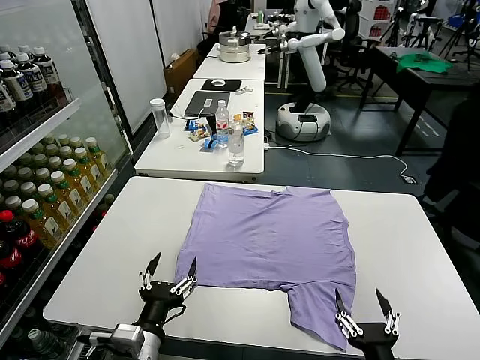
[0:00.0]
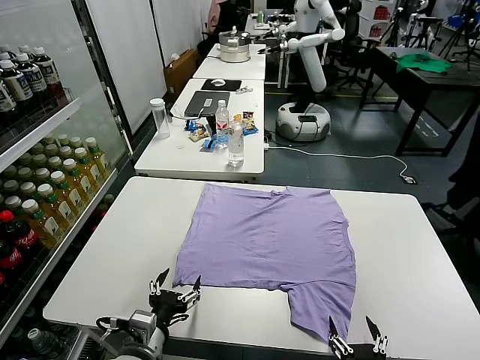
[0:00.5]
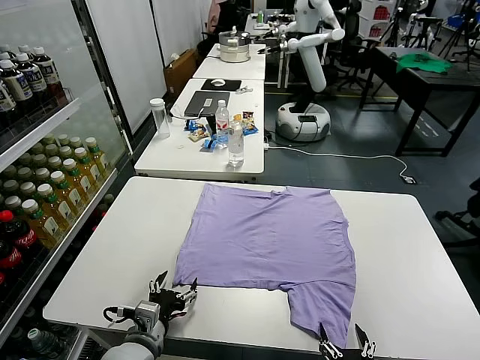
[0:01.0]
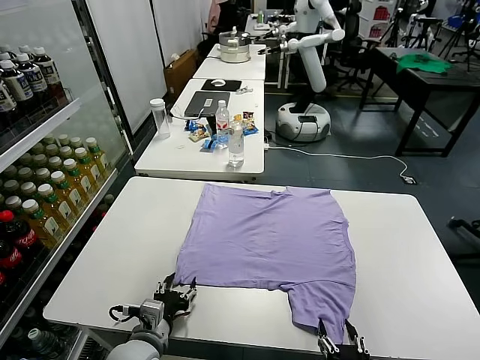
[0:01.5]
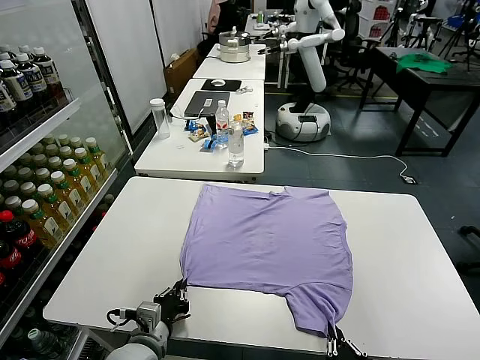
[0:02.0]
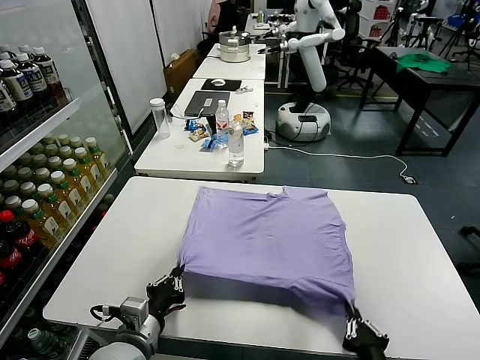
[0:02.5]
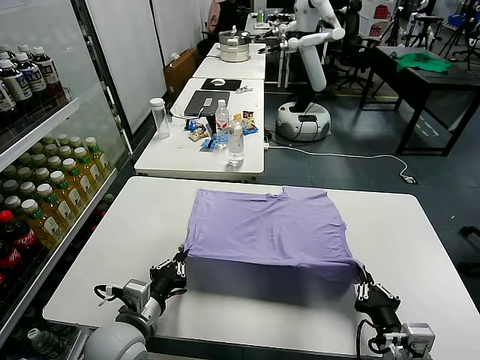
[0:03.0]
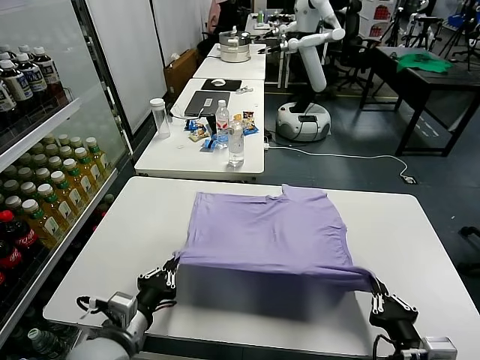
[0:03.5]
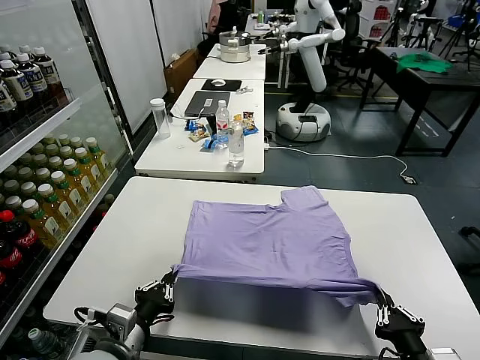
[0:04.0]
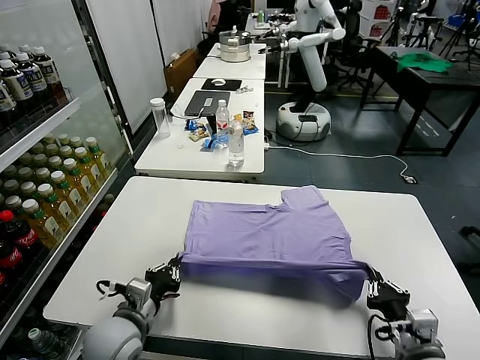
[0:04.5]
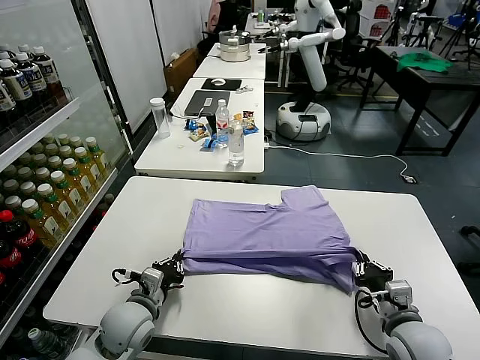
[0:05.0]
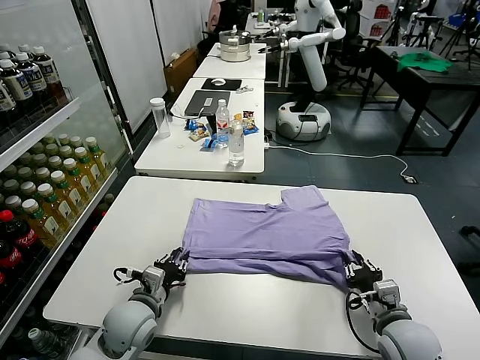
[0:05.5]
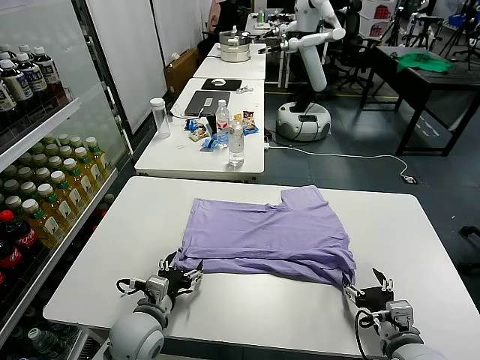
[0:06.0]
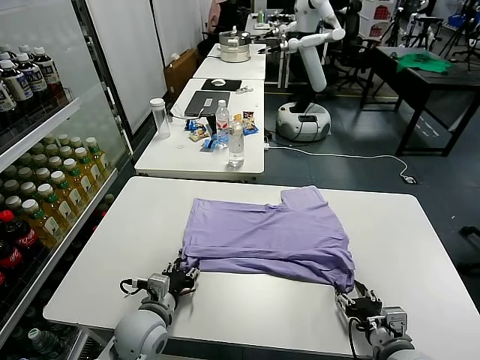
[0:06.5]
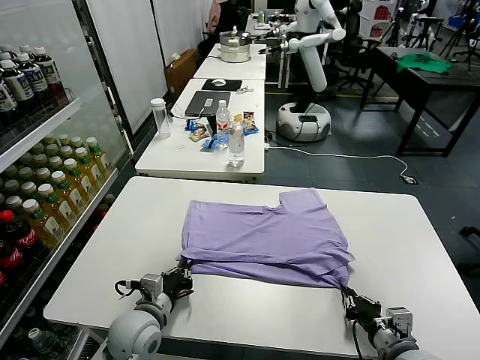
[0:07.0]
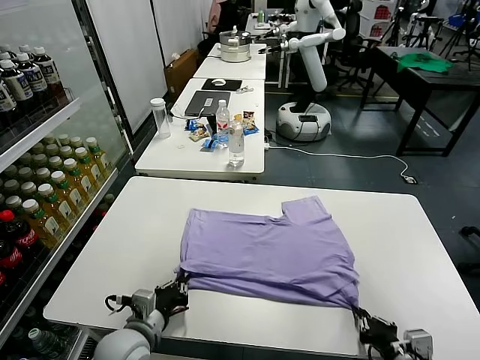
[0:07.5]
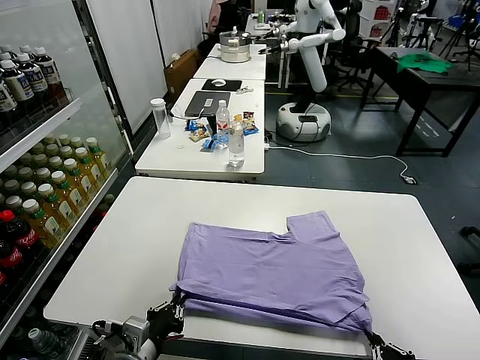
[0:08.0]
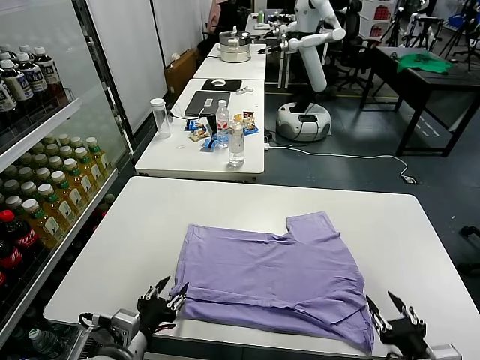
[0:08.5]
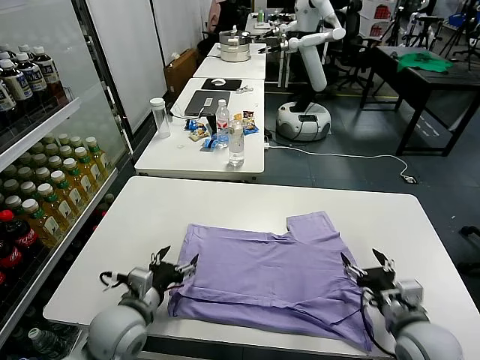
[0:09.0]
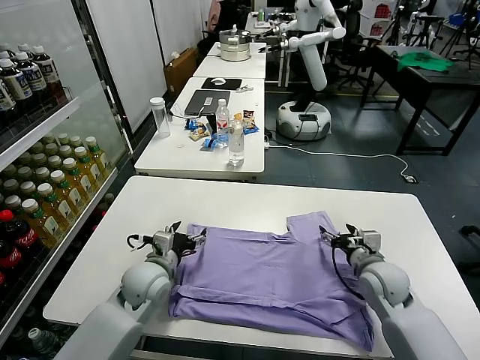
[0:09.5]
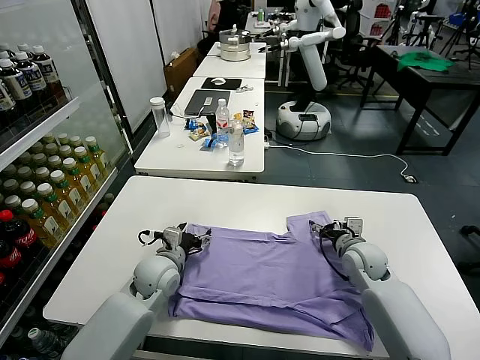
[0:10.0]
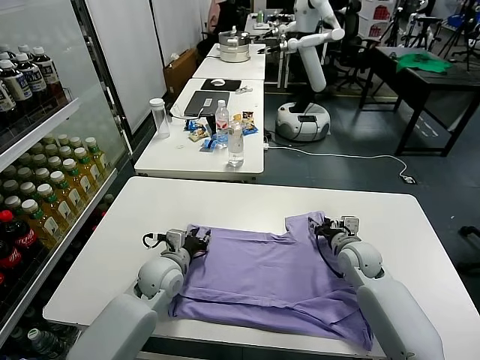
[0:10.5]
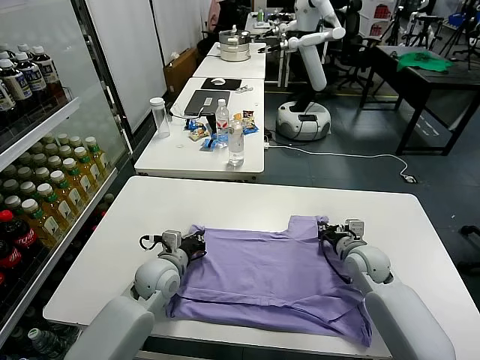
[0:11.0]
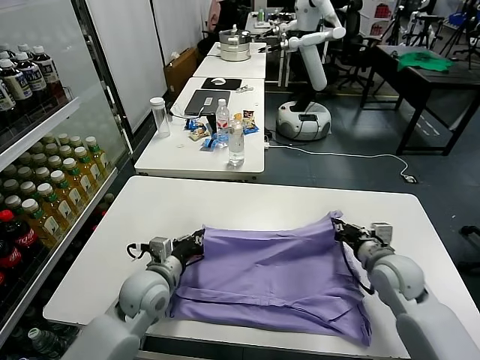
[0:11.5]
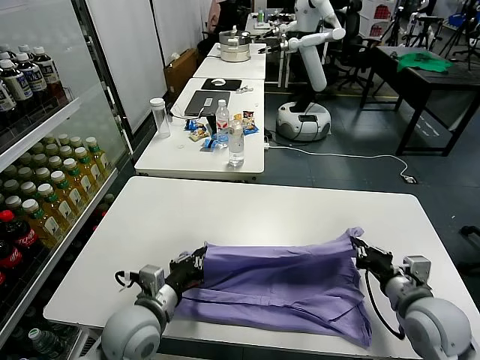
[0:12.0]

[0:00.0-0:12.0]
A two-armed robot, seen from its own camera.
Task of the whole recording: fold and organize the clothes.
Step, 0:00.0 to 0:02.0: use both grippers simultaneously to clamp the lower edge of the clothing fabric.
Step, 0:02.5 to 0:05.5: use both grippers to drag the lower edge of the fabric forward and fold it over the upper edge.
Step, 0:06.0 to 0:08.5: Drag the clothes downward with both gripper.
Step, 0:09.0 to 0:11.0: use both grippers simultaneously to clamp the upper edge of the clothing fabric.
0:02.0 to 0:04.0: The right gripper goes some 10 cm upward and to the right; the left gripper shifts some 5 cm upward.
0:04.0 to 0:06.0: Both grippers move forward and downward, roughly 10 cm. The left gripper opens its fingers. The right gripper opens its fingers.
0:06.0 to 0:08.0: The two grippers go approximately 10 cm backward. The left gripper closes up; the right gripper closes.
0:08.0 to 0:10.0: The right gripper goes some 35 cm forward, and opens up; the left gripper is displaced forward by roughly 25 cm, and opens up.
0:10.0 to 0:12.0: The right gripper travels backward and upward by approximately 20 cm, and closes its fingers, while the left gripper is displaced backward by some 15 cm, and closes.

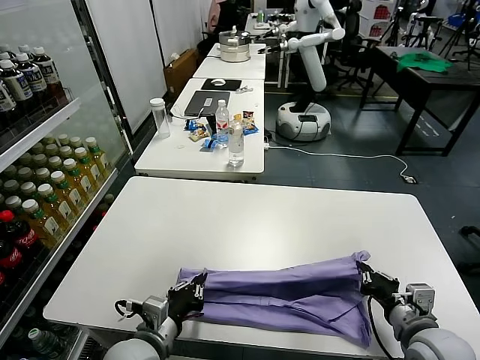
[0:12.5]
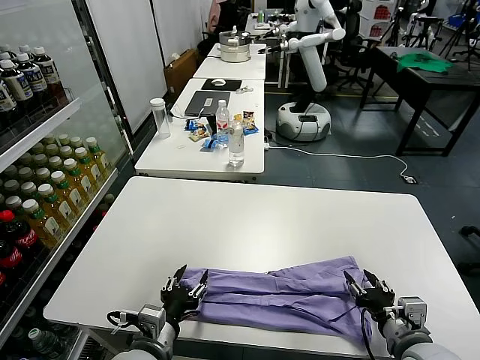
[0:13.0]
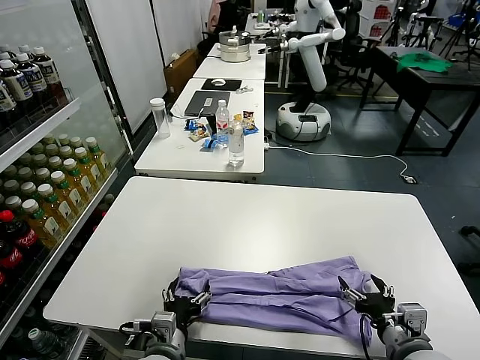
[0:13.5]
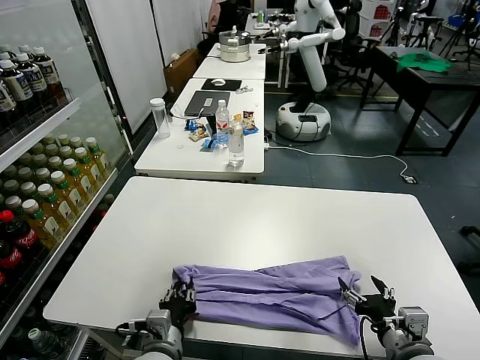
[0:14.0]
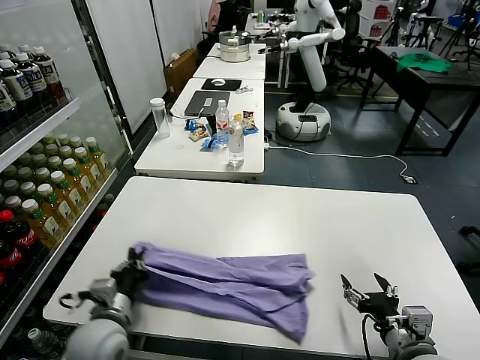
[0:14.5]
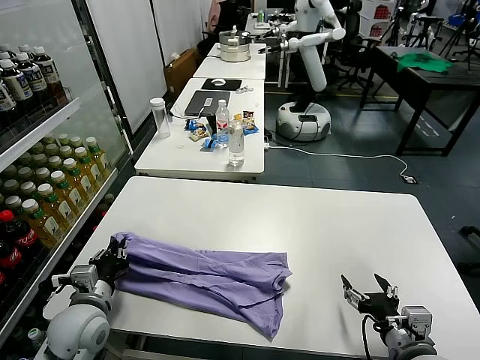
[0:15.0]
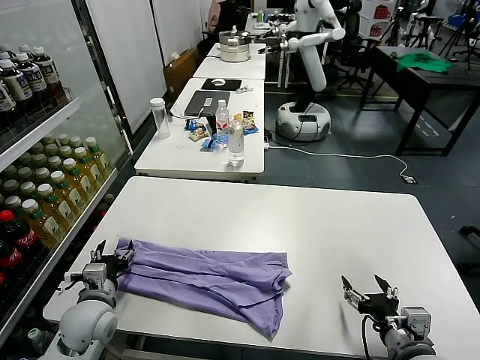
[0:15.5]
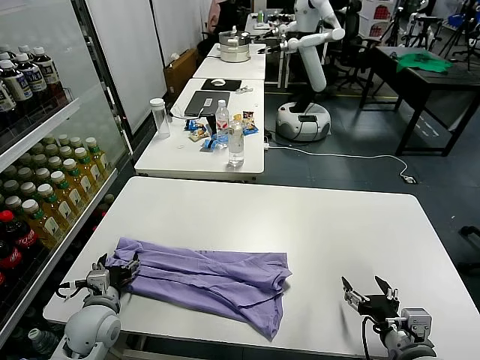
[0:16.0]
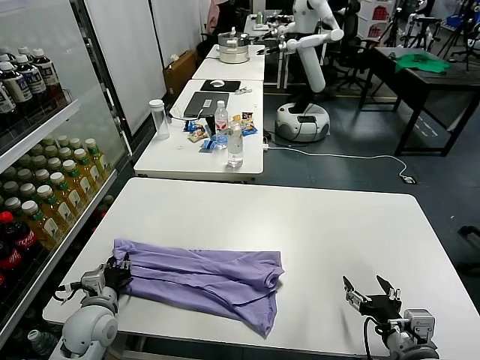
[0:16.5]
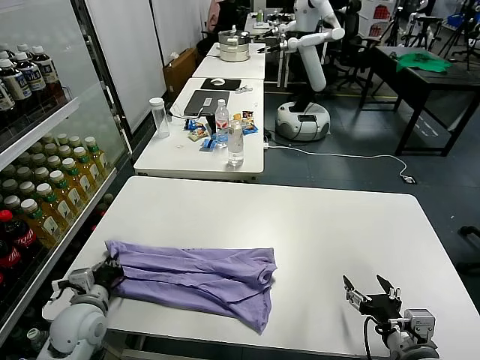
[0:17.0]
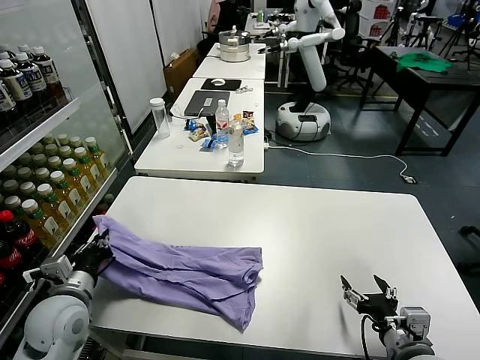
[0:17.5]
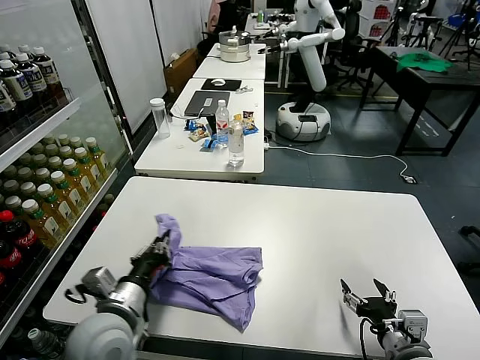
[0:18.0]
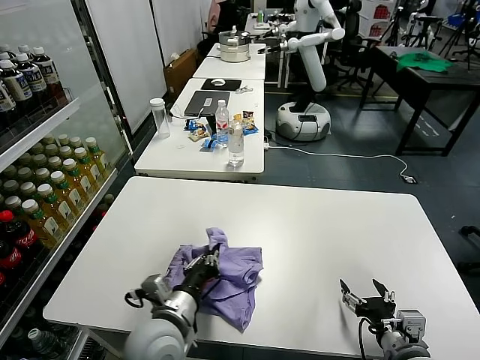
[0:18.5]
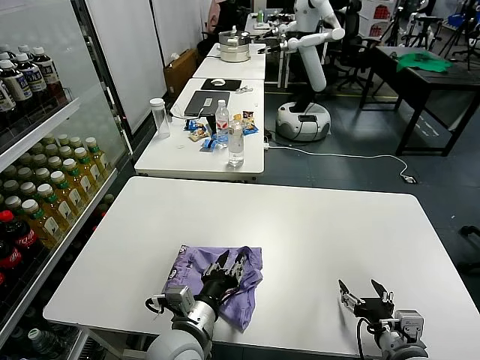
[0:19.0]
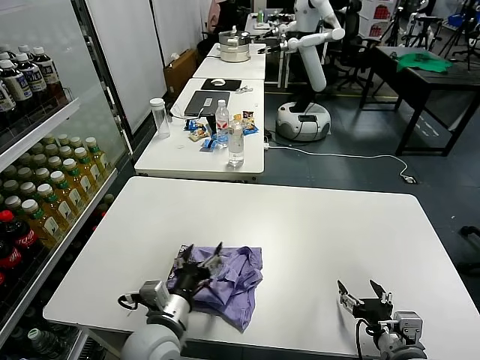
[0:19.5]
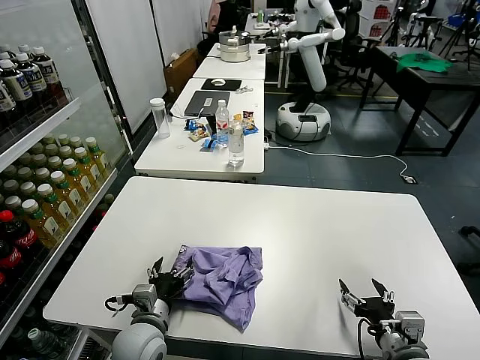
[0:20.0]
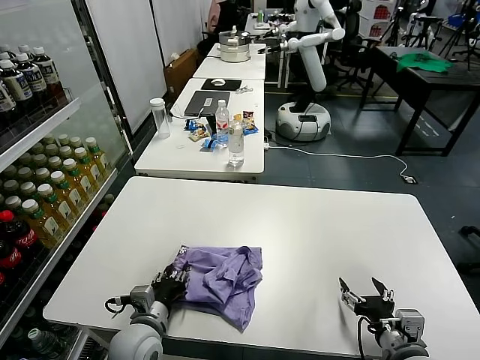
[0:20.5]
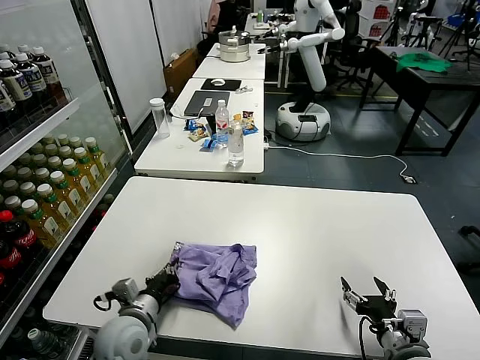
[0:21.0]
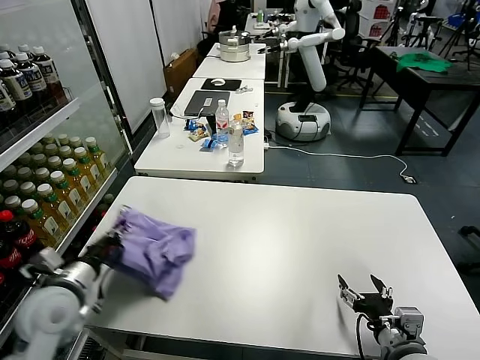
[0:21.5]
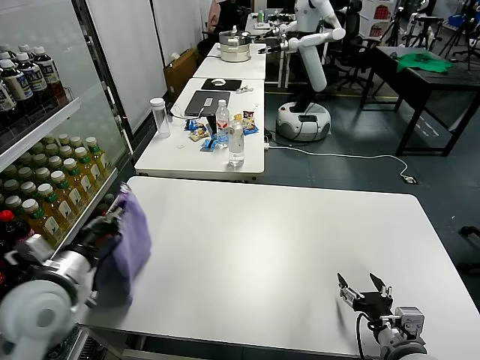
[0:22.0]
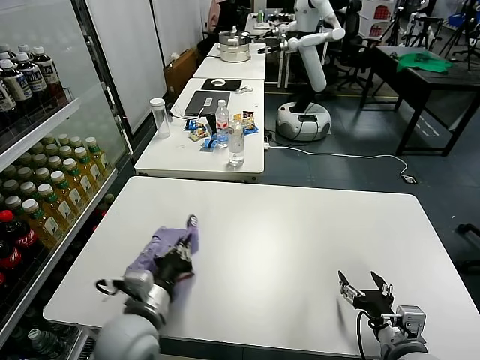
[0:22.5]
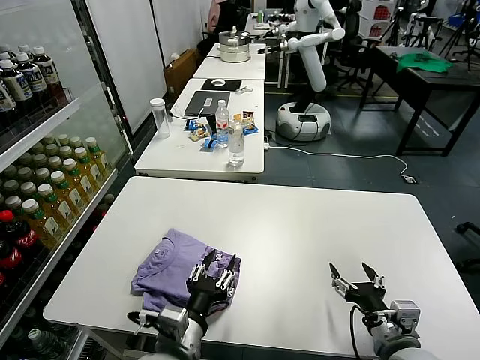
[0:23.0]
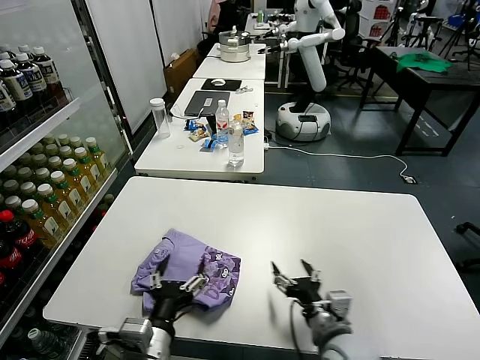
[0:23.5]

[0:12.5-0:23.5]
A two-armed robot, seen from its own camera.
Task of the whole recording: fold and organize the clothes.
Step, 0:13.5 to 0:14.0: use the left gripper to clamp the left edge of the fabric.
Step, 0:14.5 to 0:19.0: use the left gripper to drag the left edge of the fabric to the left and folds it over the right edge.
Step, 0:19.5 to 0:23.0: Flip the folded clothes over with left gripper.
0:12.5 to 0:14.5: The left gripper is displaced to the left by roughly 5 cm, and opens, then closes again; the right gripper opens its fingers.
0:14.5 to 0:16.0: The left gripper shifts approximately 5 cm to the left, and opens its fingers.
0:16.0 to 0:18.0: The left gripper goes approximately 15 cm upward, to the right and backward, and closes its fingers.
0:18.0 to 0:20.0: The left gripper moves downward, roughly 10 cm, travels to the right and back again, about 10 cm each way, and opens up.
0:20.0 to 0:21.5: The left gripper goes roughly 15 cm to the left and upward, and closes.
0:21.5 to 0:23.5: The right gripper shifts some 10 cm to the left; the left gripper is displaced to the right and backward by about 20 cm, and opens.

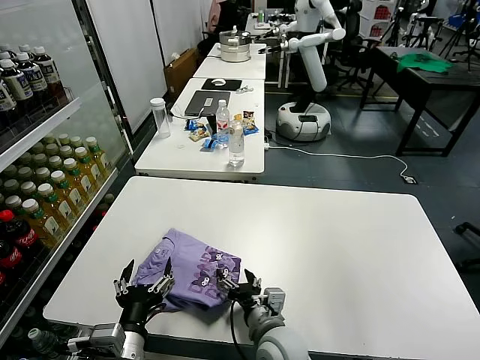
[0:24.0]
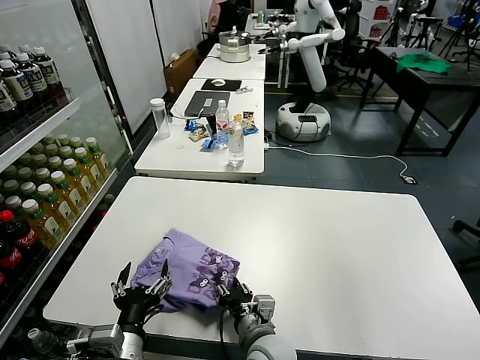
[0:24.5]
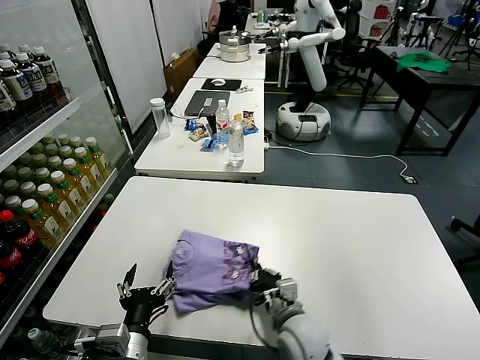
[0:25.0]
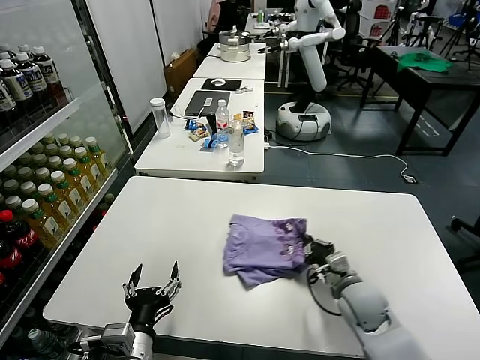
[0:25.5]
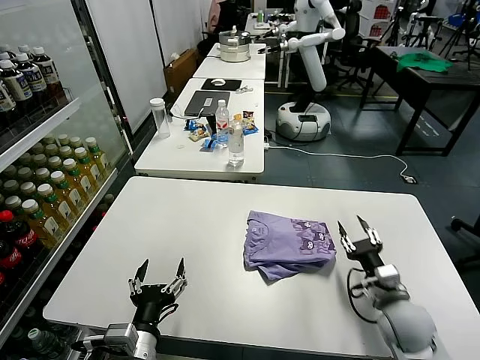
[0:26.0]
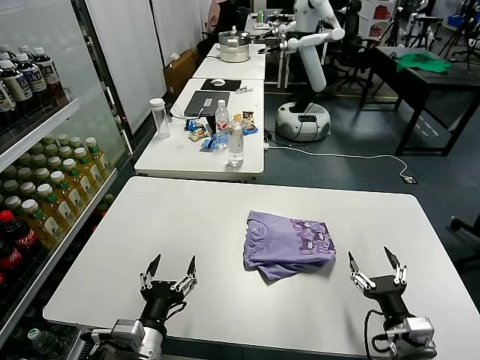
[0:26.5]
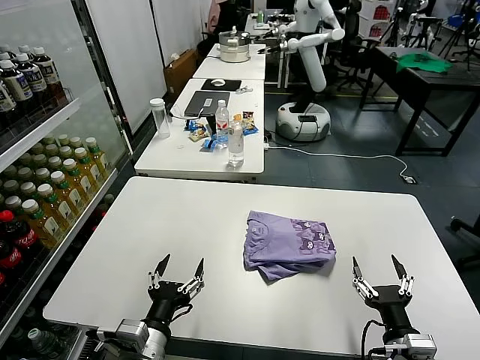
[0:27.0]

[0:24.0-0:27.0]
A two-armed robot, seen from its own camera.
Task of the whole recording: fold and organize the clothes.
Step, 0:24.0 to 0:25.5: Drag the clothes to the center of the table.
0:24.0 to 0:25.5: The right gripper shifts some 20 cm to the right and forward, and closes up.
0:25.5 to 0:27.0: The right gripper shifts approximately 20 cm backward, and opens.
